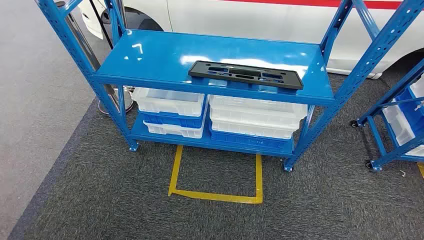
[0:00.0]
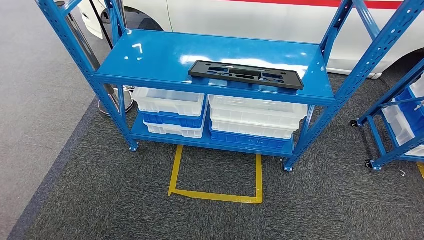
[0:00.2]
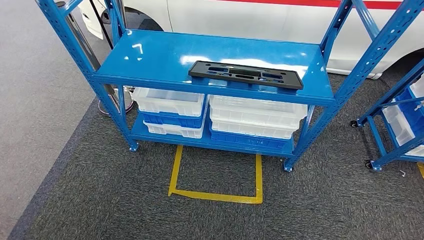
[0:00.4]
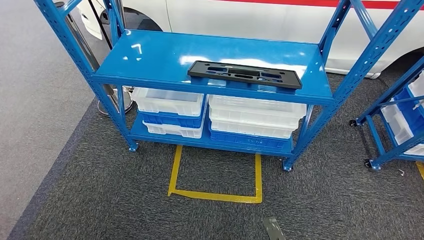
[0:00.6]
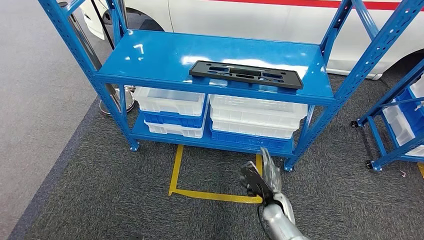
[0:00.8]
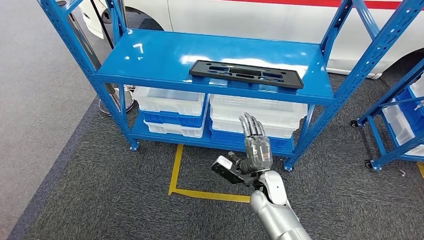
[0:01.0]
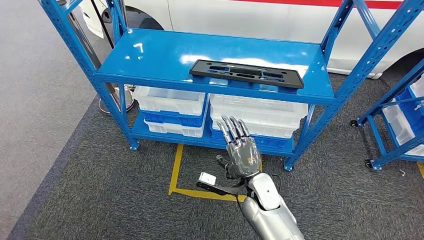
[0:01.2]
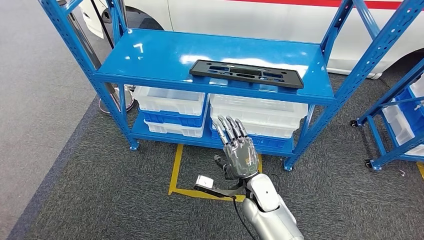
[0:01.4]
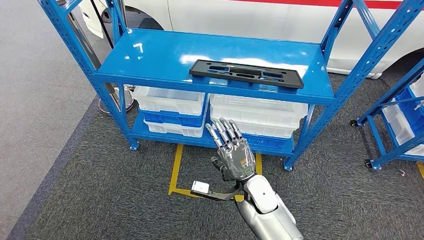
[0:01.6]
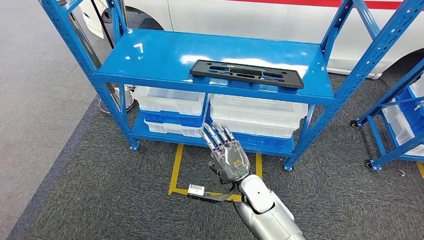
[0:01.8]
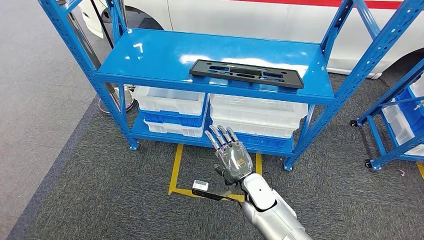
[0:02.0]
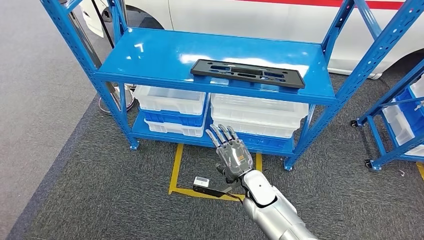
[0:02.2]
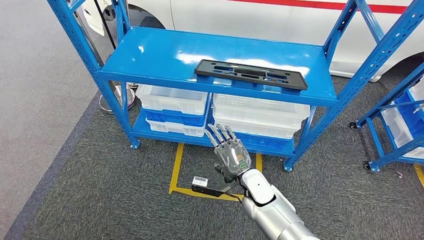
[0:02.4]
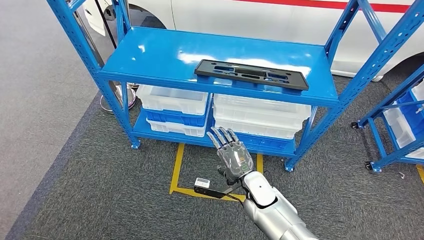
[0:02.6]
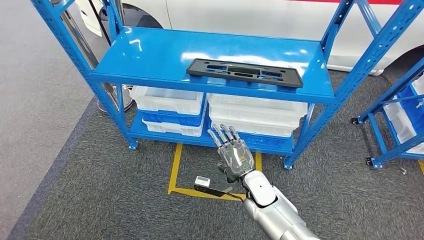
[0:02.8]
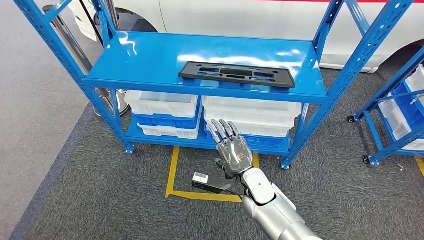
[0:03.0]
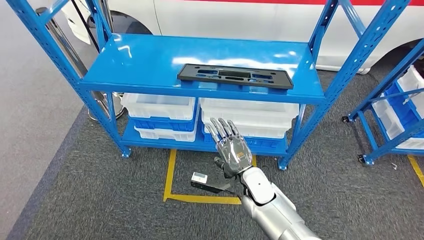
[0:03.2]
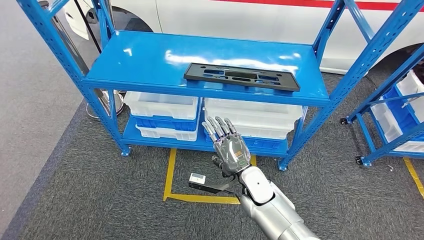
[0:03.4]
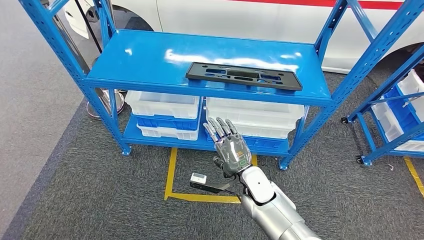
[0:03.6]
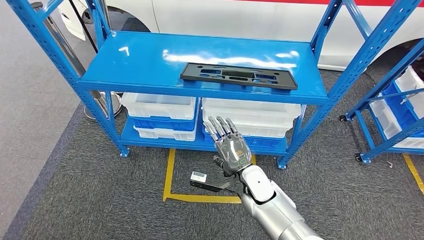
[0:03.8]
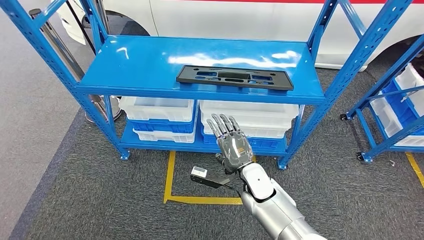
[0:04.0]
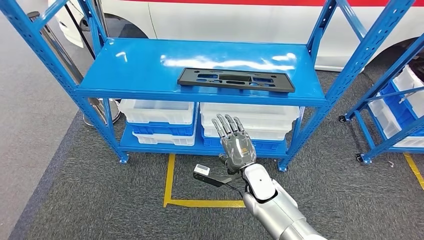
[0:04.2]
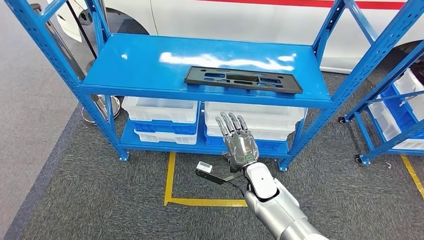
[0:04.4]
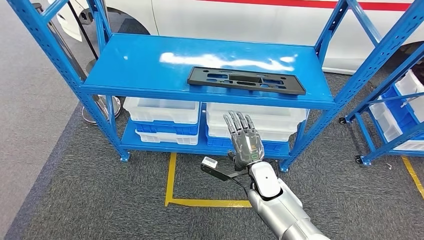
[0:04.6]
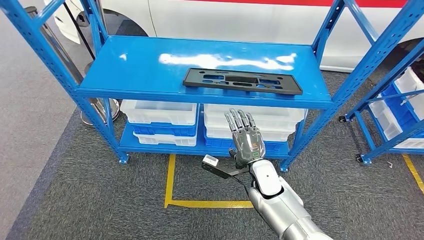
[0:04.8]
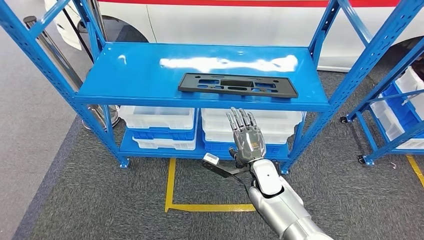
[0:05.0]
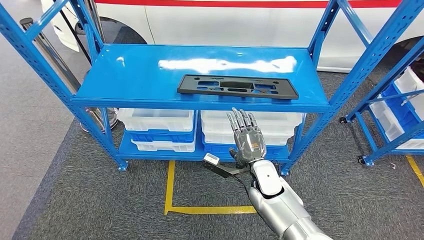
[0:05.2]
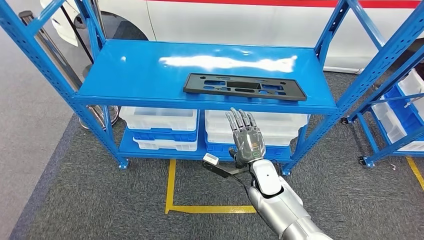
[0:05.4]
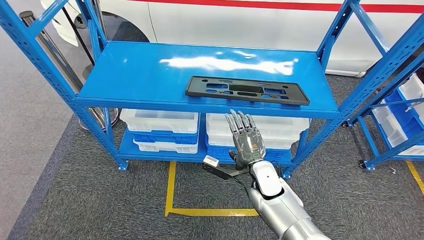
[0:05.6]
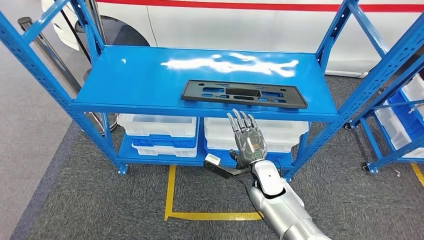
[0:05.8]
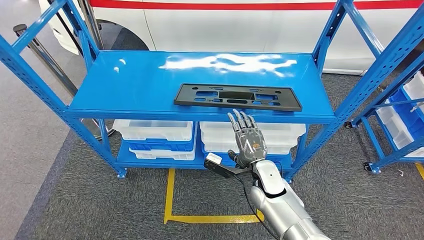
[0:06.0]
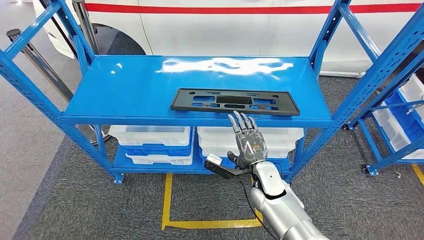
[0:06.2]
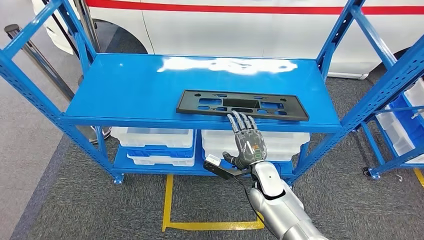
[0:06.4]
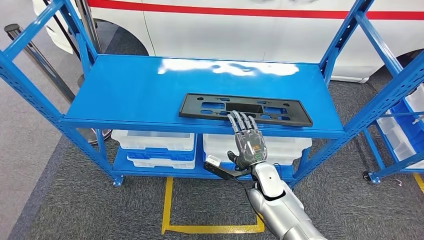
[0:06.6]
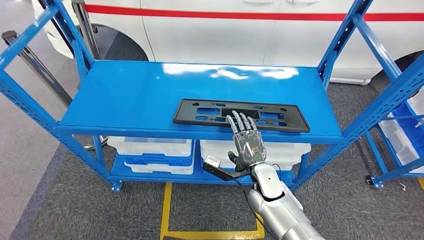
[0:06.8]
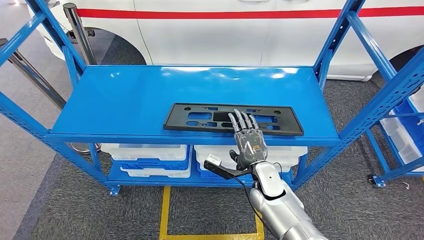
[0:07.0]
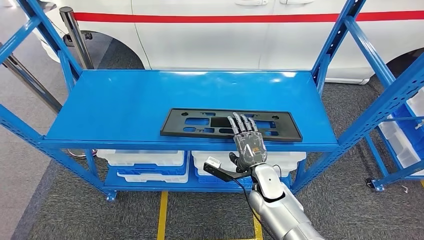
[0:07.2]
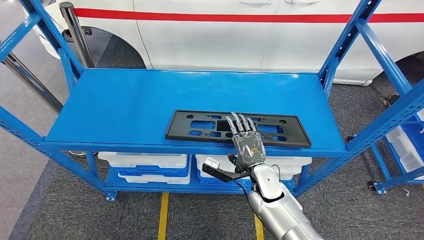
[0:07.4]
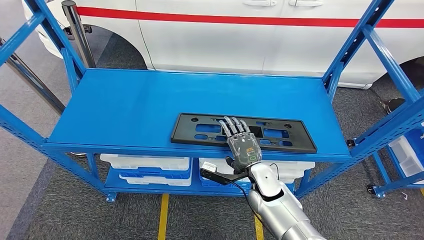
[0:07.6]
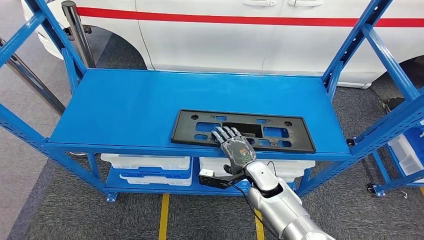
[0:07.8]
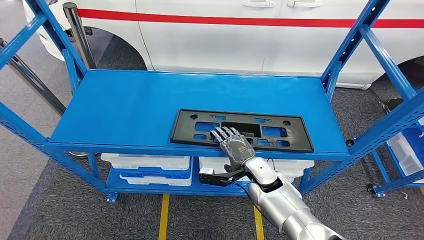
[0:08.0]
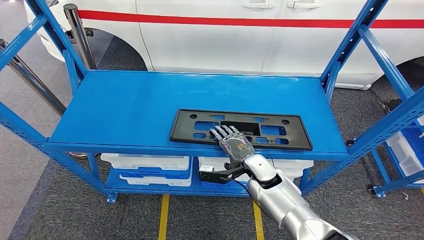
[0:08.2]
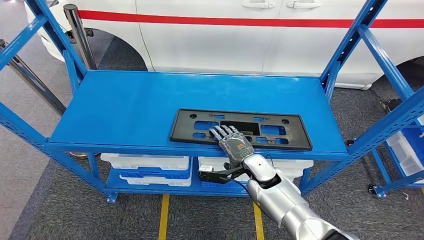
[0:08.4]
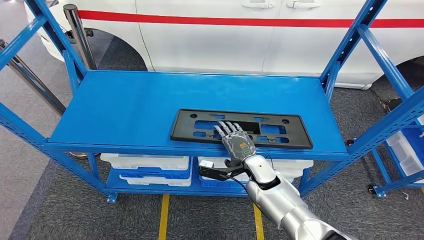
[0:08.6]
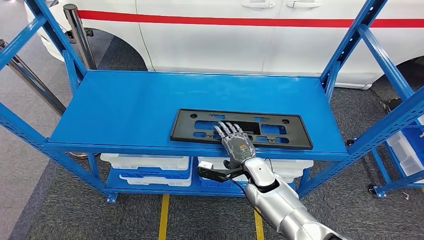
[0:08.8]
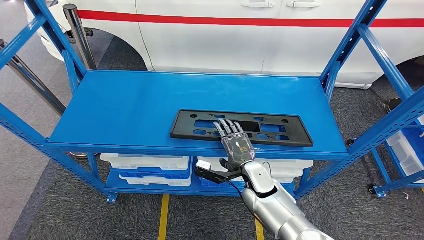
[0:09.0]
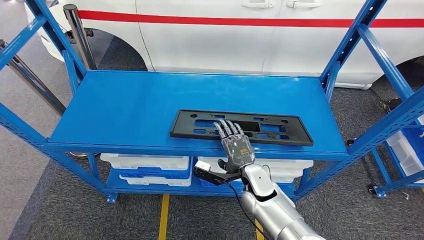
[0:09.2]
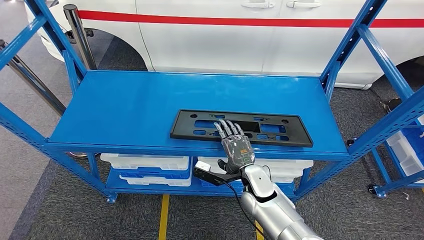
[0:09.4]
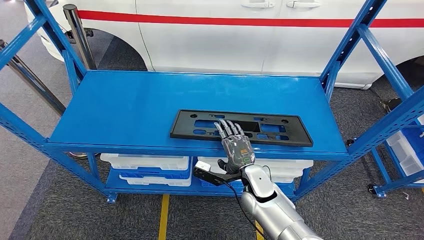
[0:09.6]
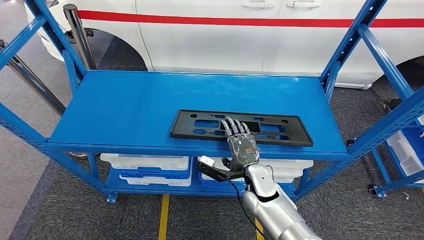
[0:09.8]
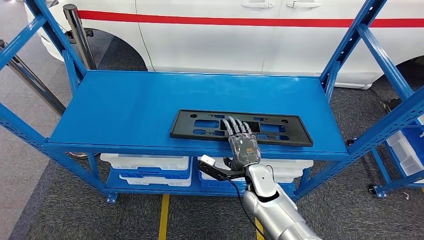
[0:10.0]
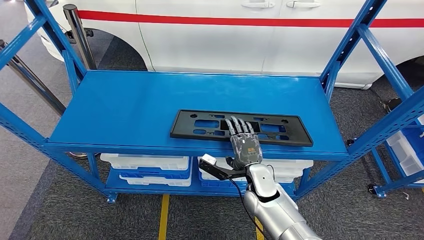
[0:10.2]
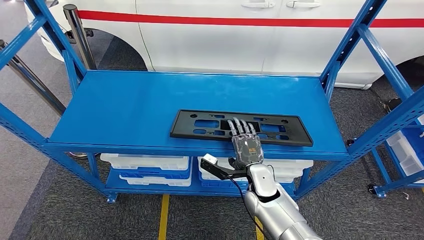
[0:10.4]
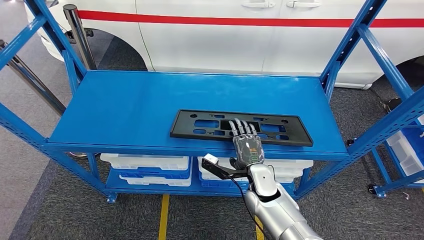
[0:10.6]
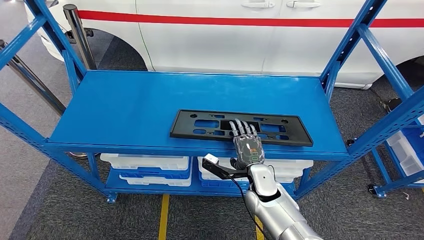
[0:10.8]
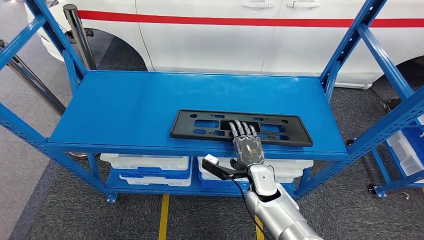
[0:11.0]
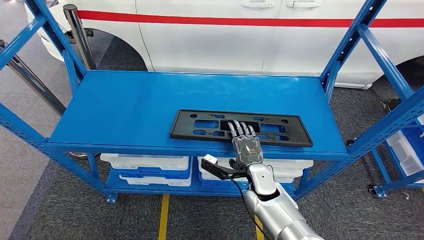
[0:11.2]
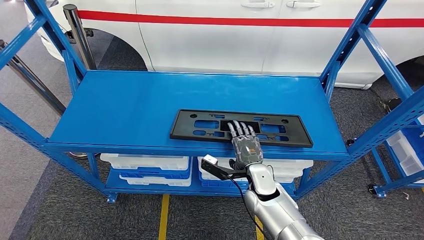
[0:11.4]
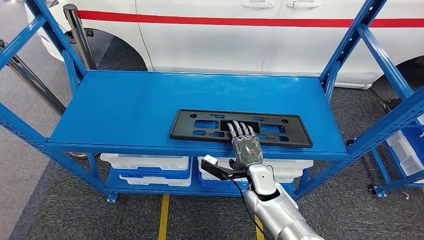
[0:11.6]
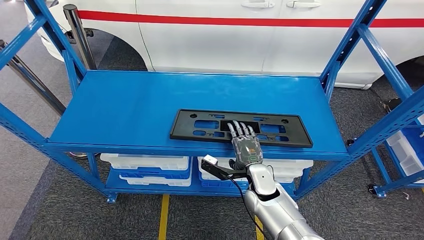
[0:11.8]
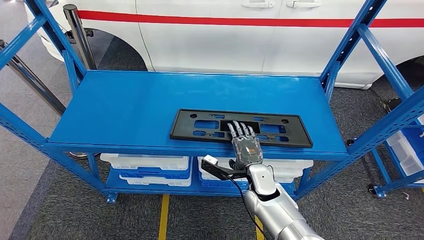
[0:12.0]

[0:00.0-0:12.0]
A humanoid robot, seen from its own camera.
0:07.6 to 0:10.4: The hands move only a little.
0:10.4 to 0:12.0: Both hands stay about where they are.

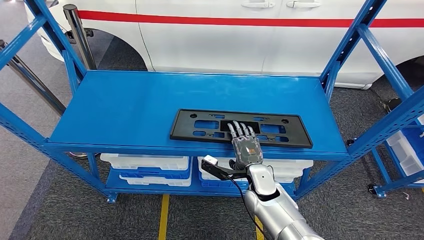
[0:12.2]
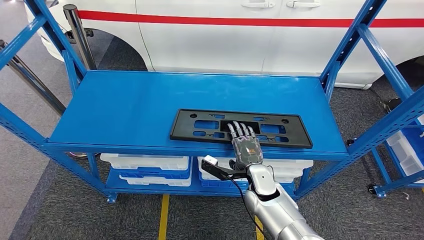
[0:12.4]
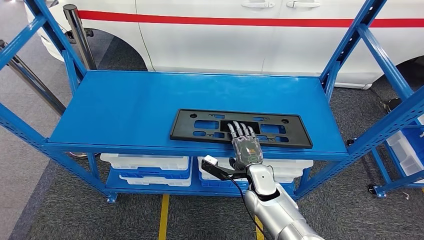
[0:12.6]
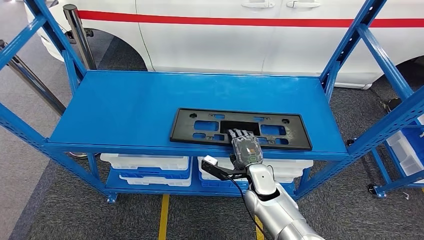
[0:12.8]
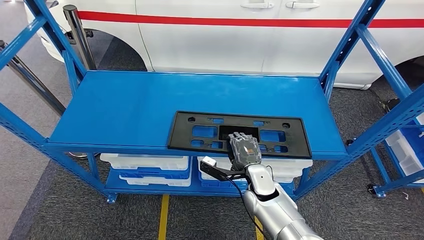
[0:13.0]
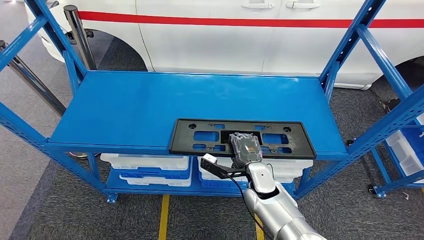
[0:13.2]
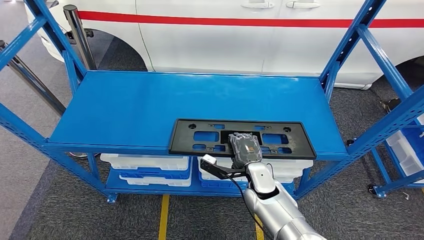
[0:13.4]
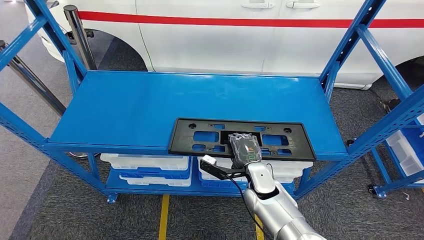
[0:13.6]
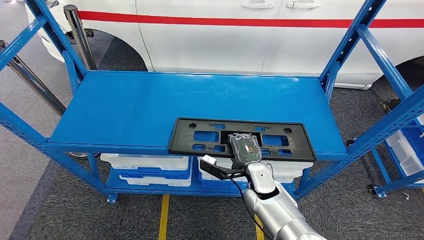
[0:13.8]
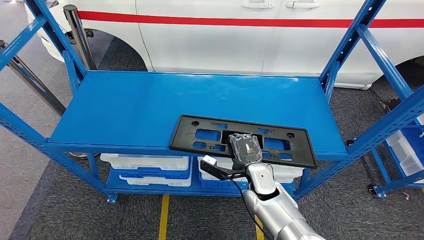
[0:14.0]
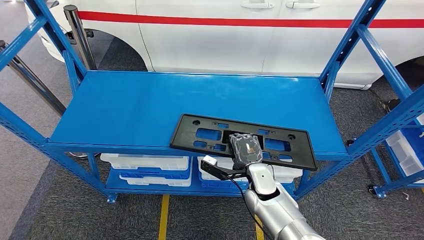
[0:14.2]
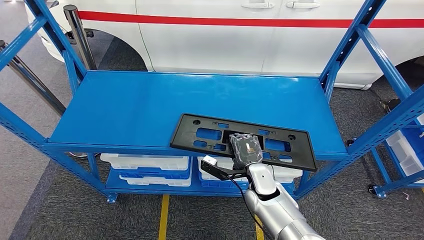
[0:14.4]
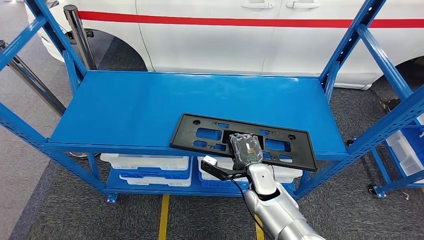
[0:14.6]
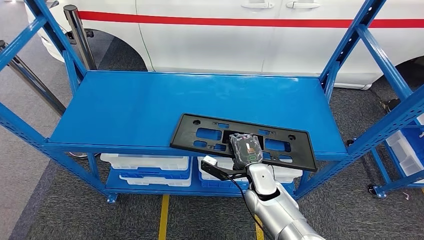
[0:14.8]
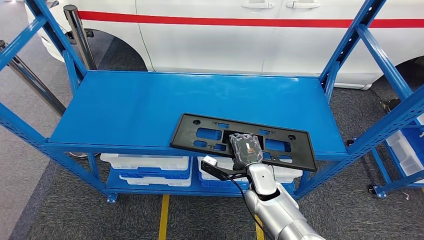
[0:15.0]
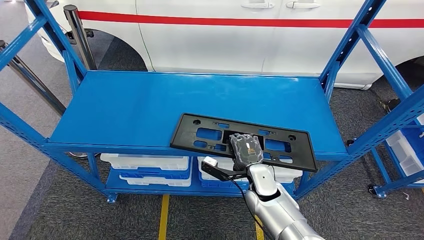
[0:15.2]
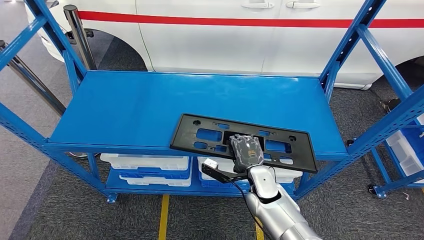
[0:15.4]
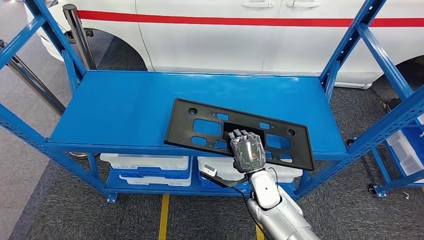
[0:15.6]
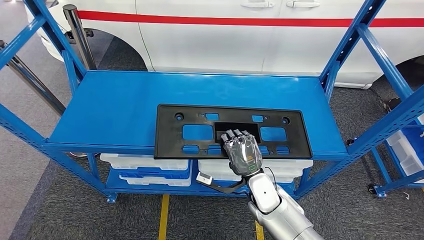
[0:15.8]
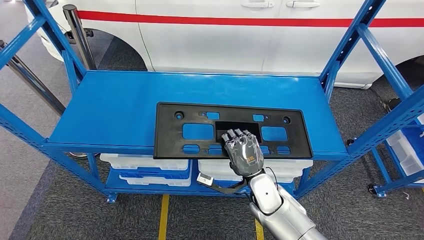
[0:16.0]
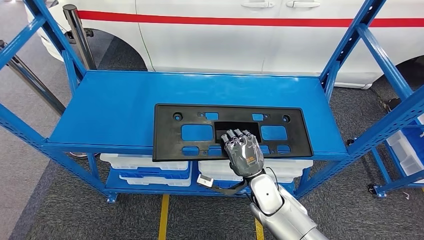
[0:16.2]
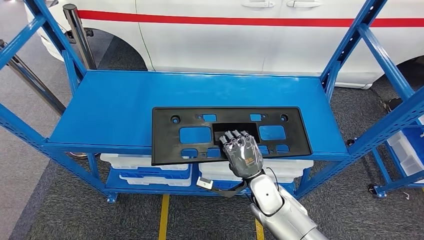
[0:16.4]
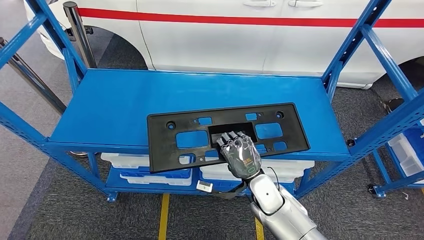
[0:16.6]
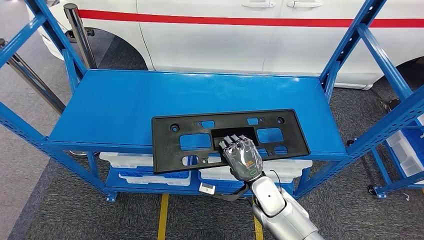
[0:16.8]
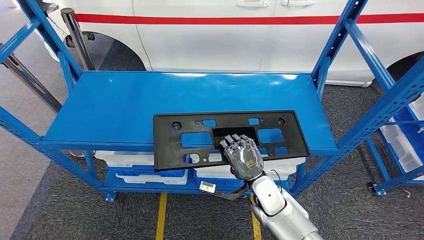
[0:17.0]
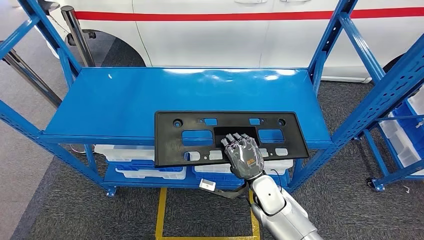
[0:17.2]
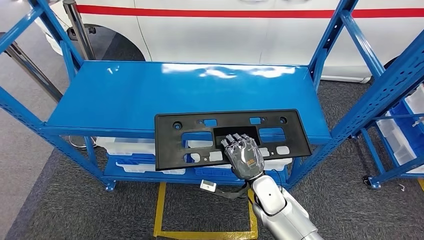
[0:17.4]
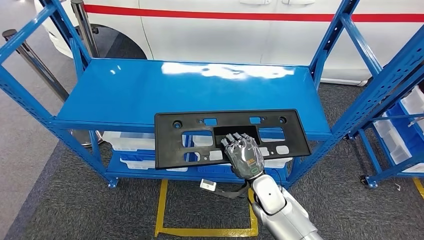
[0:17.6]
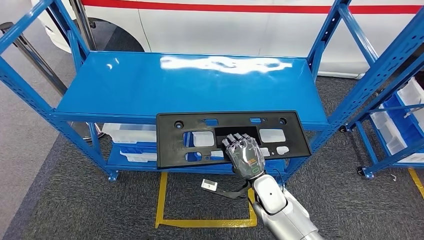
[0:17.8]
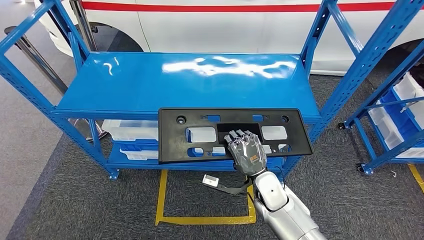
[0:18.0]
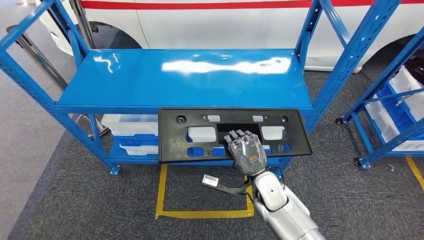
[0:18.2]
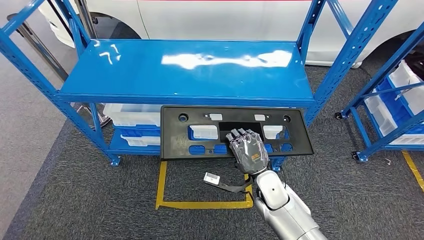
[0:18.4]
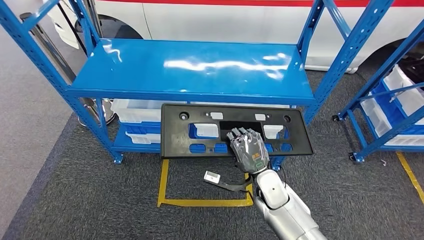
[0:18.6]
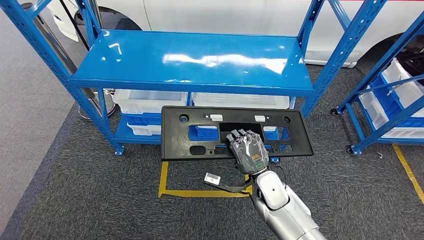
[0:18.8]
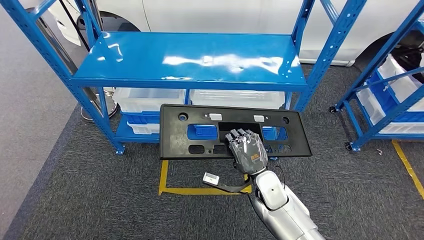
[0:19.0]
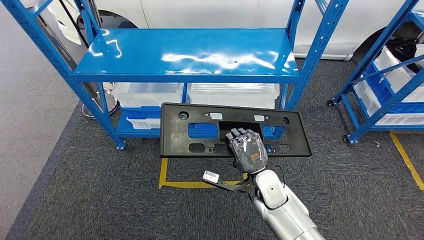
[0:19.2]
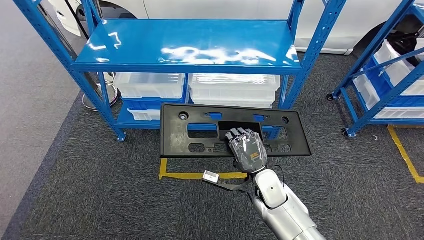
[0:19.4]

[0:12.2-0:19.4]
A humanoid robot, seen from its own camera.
Step, 0:12.2 to 0:15.8: Pick up the large material from the shelf.
0:12.2 to 0:15.0: The two hands keep their place.
